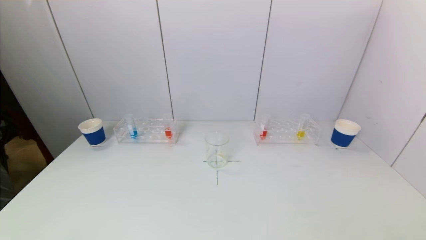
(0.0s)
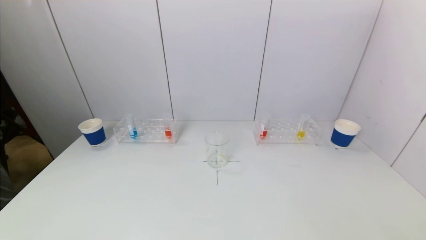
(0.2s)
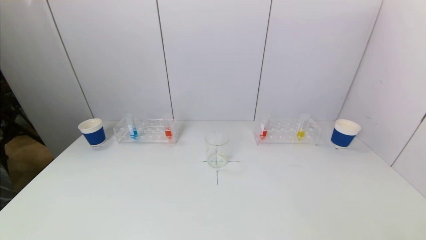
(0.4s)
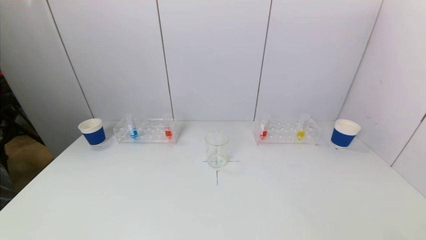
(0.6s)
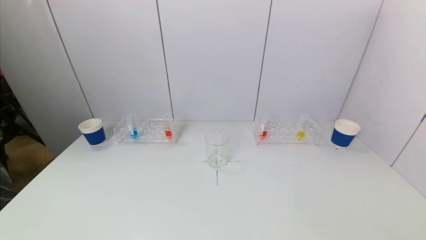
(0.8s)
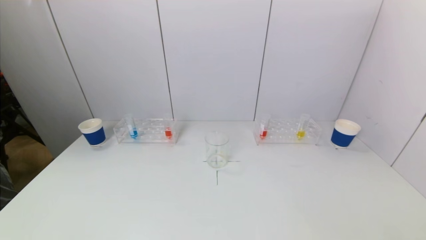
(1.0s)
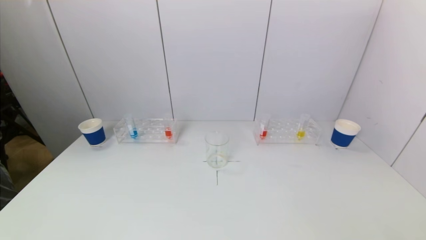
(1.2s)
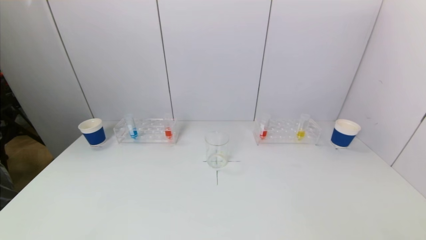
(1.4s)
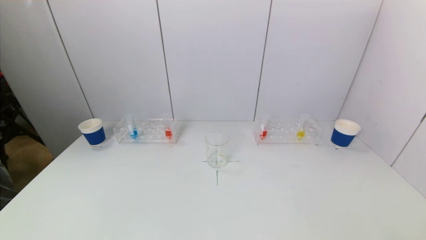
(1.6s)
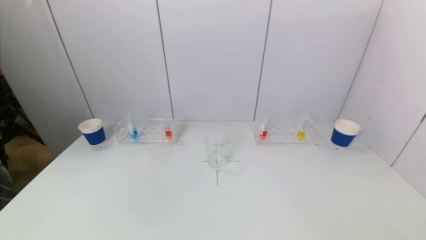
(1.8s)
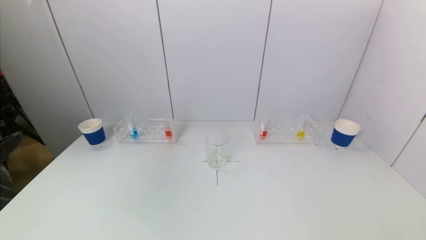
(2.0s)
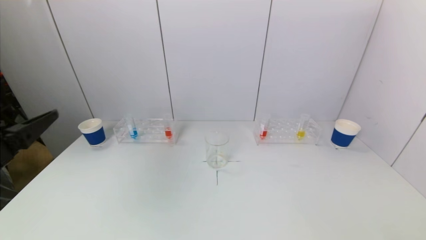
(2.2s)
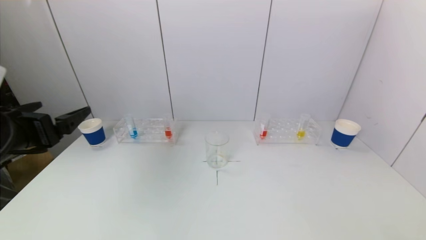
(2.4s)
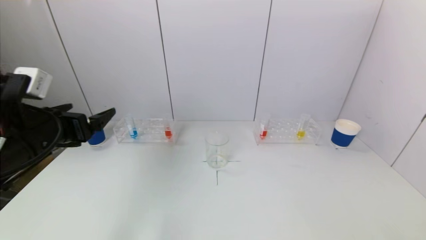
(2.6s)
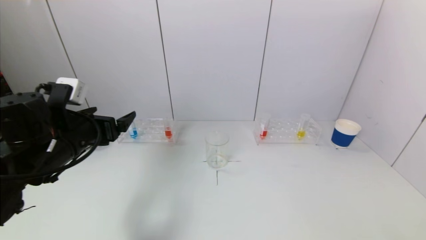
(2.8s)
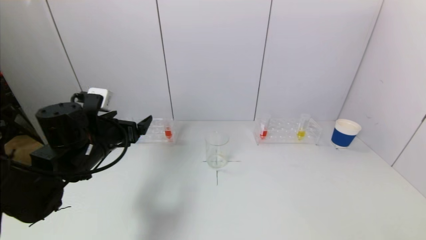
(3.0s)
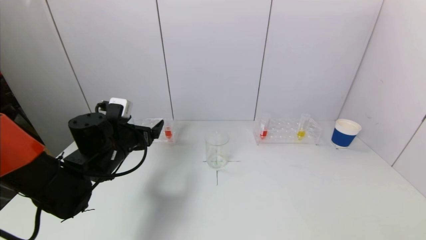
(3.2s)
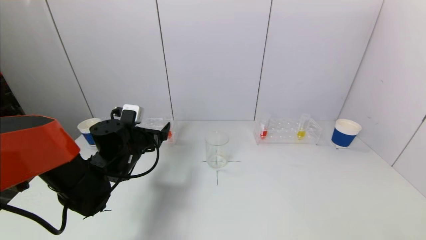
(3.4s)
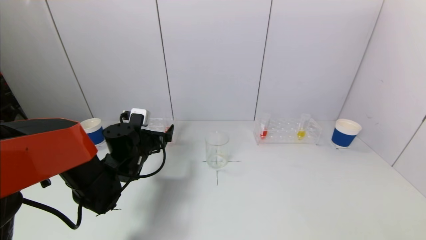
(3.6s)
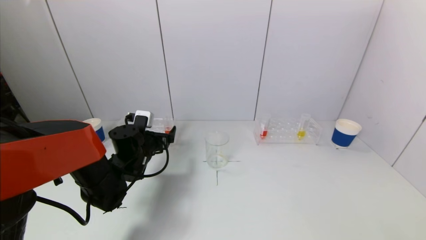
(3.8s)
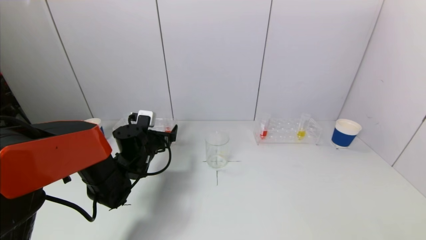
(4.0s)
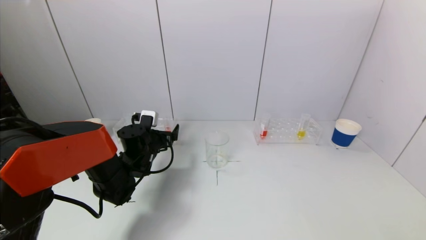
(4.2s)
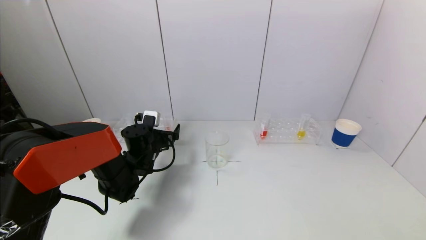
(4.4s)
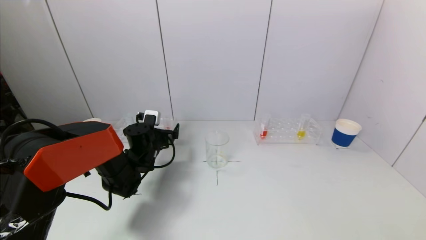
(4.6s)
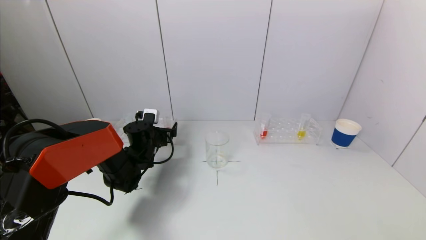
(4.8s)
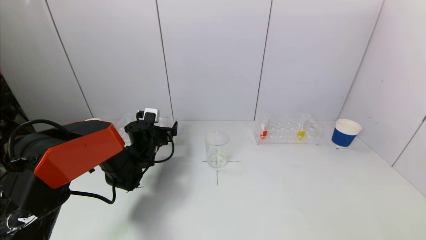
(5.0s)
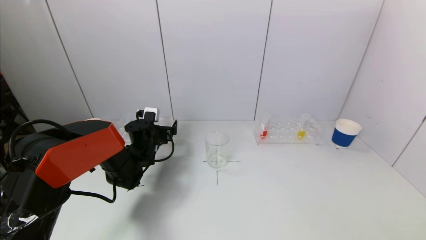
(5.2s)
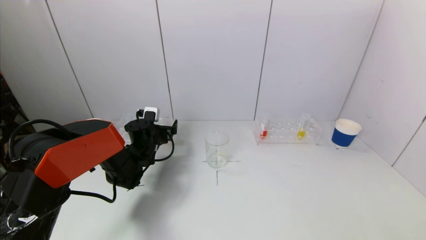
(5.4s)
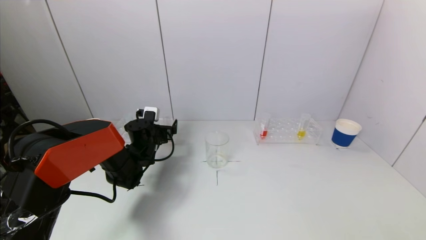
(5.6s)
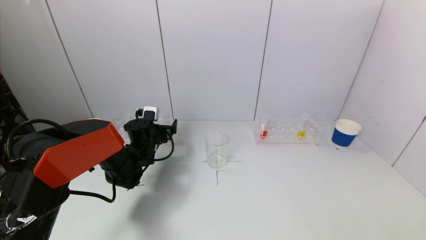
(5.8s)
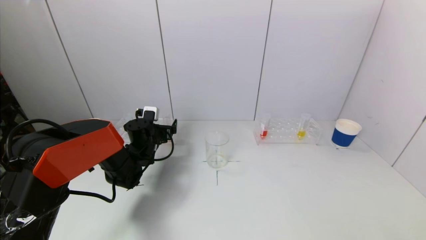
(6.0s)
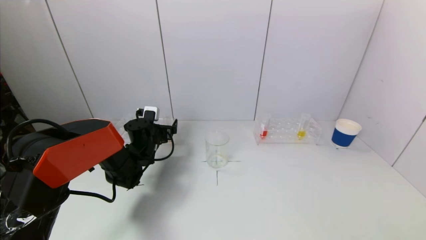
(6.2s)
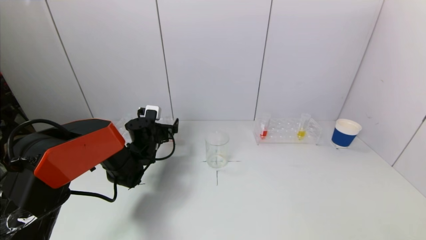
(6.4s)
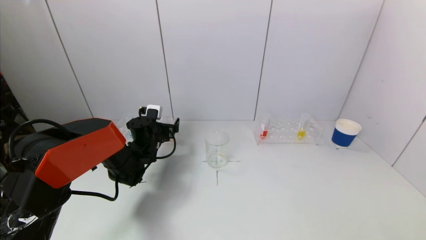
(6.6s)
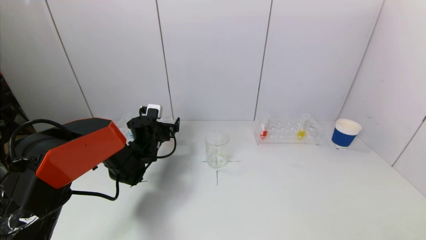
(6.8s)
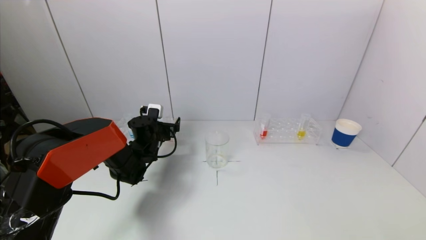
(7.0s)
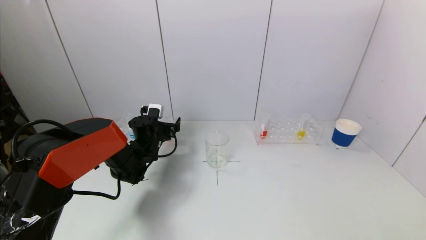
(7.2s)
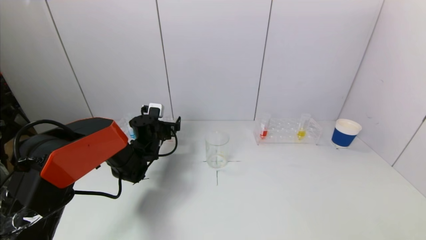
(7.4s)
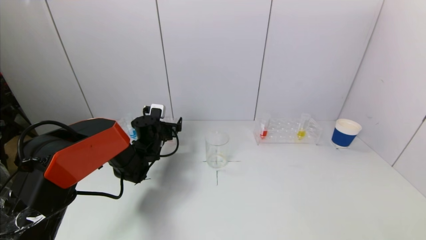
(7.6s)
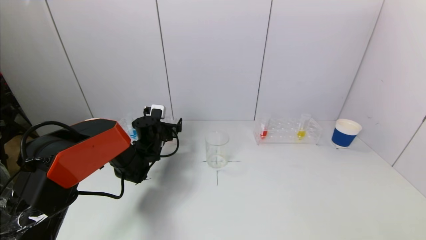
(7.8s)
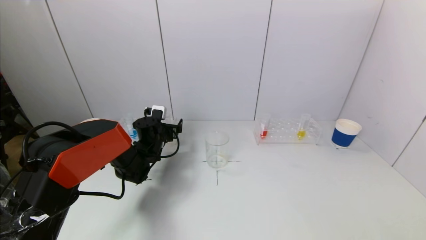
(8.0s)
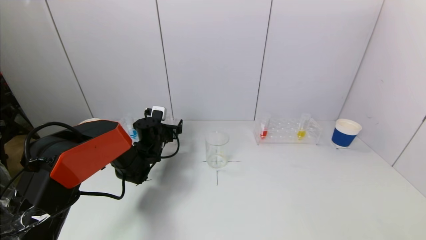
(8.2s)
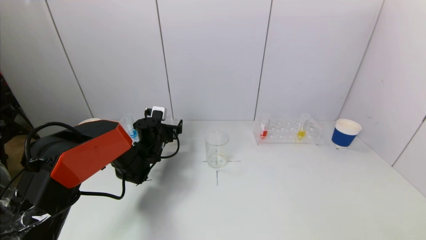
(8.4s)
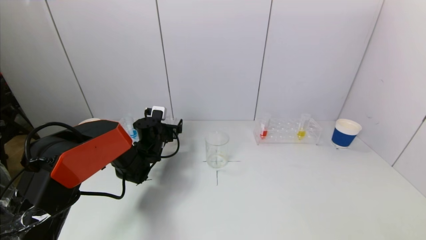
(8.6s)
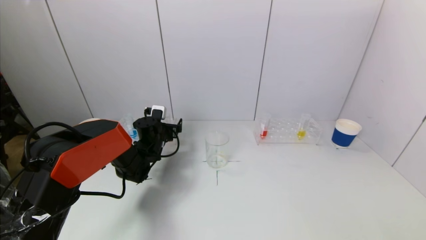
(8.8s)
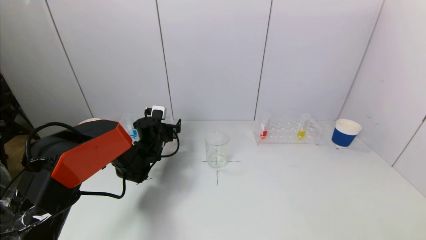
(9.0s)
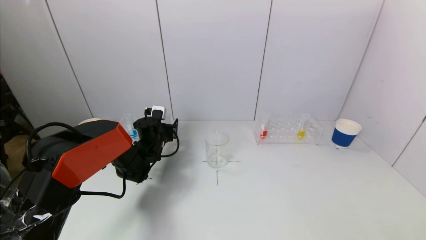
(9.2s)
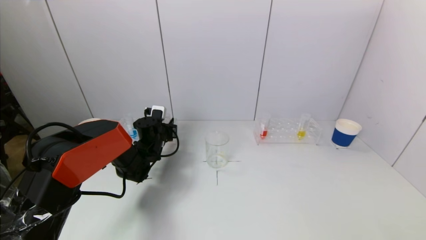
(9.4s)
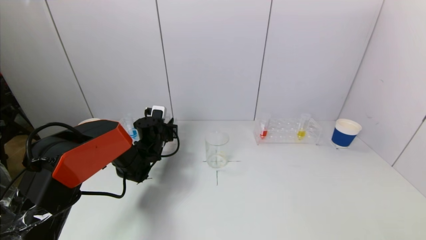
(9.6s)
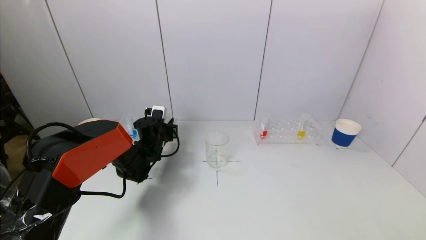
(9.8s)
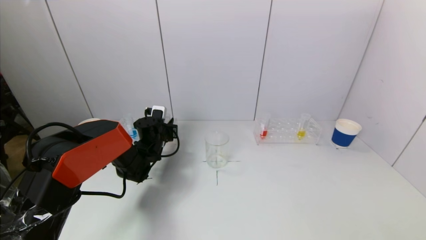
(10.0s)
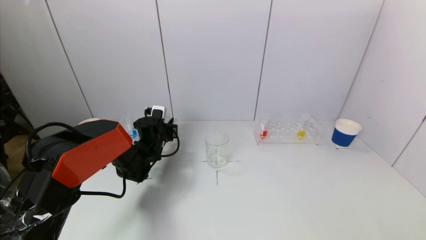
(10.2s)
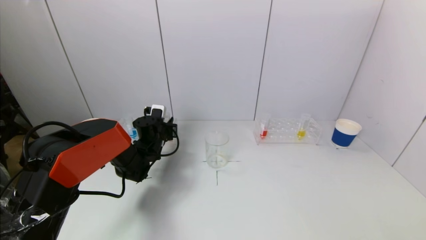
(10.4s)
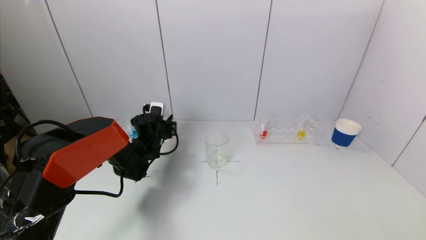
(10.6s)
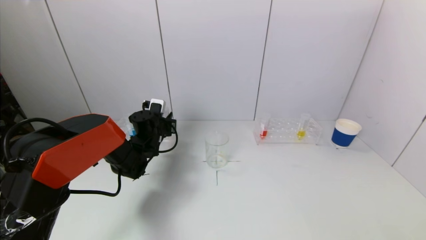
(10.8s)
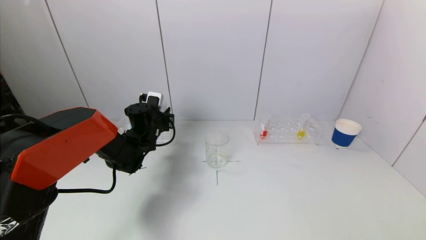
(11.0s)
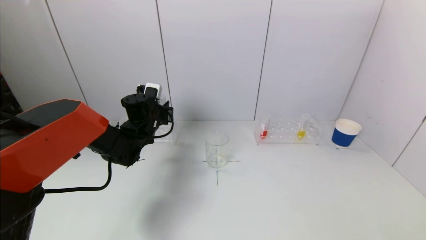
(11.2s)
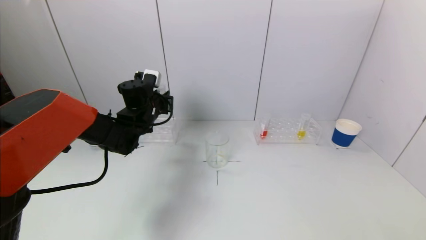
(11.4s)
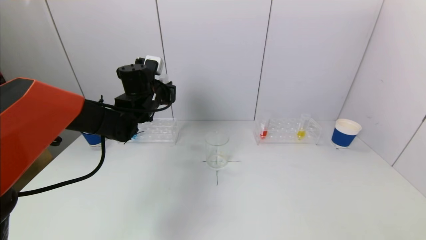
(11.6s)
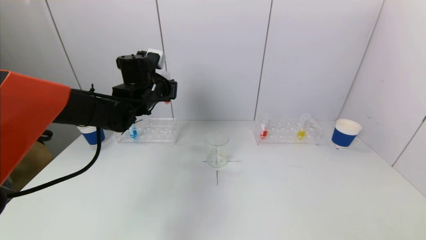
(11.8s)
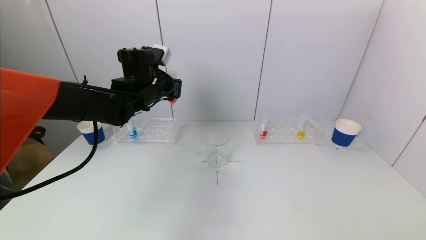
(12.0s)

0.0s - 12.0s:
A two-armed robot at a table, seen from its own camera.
Task of the whole recording: pick up a test tube with pigment on left test tube rack and a test tube with pigment on right test tube rack by grippers and pour them into the beaker.
Step, 0.0s - 9.6s: Grasp the red reagent with the left gripper.
1.6s - 3.0s: The left gripper shifts some 30 cm forward.
3.0s - 4.4s: The left gripper is displaced downward, forward and to the right by roughly 15 cm.
4.4s - 7.6s: The grippers make only small movements.
7.6s - 9.0s: The two grippers keep their place.
9.0s - 10.4s: The left gripper closes its fingers.
10.4s - 12.0s: The left gripper shifts some 20 cm upward.

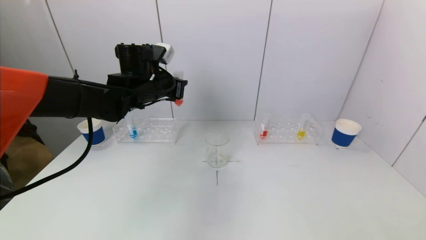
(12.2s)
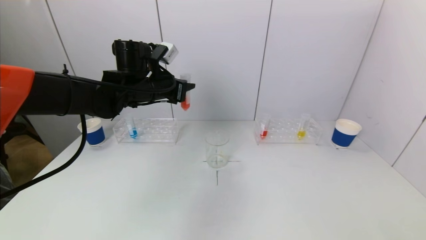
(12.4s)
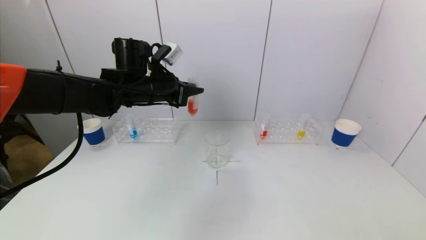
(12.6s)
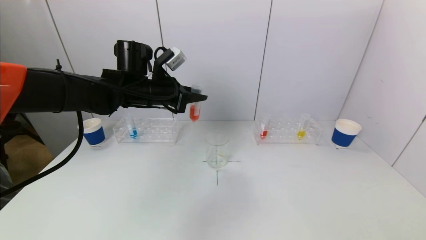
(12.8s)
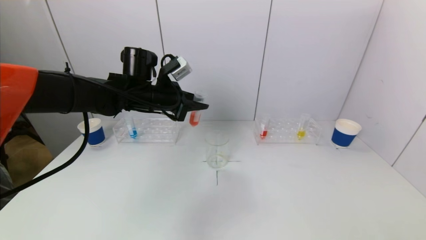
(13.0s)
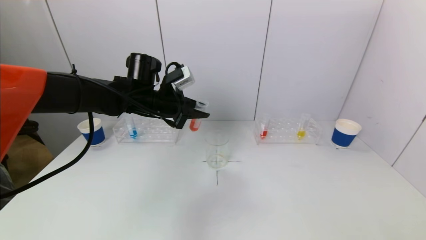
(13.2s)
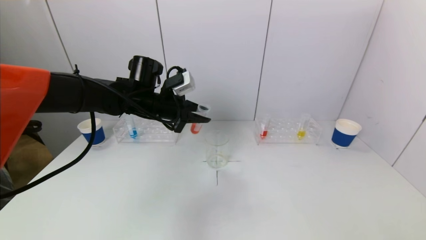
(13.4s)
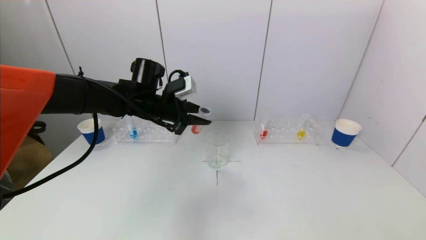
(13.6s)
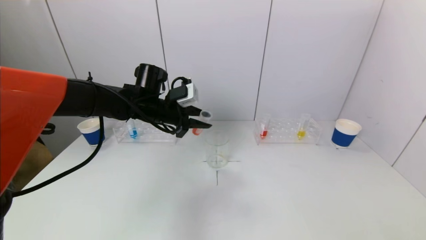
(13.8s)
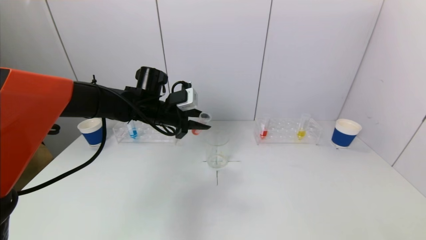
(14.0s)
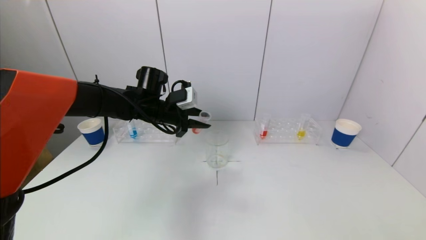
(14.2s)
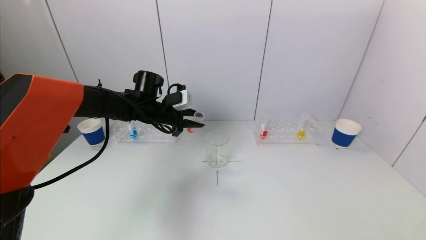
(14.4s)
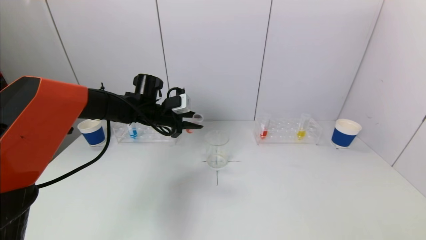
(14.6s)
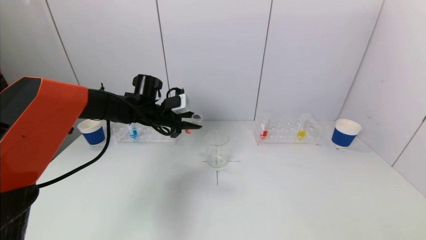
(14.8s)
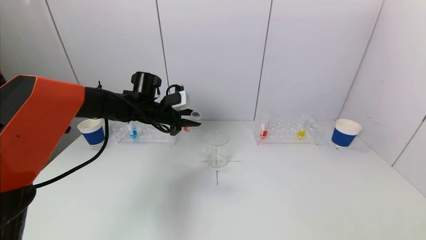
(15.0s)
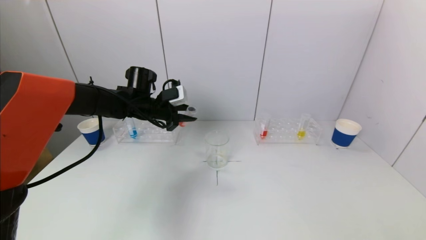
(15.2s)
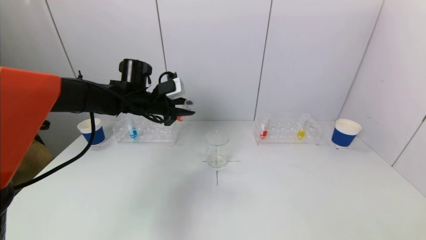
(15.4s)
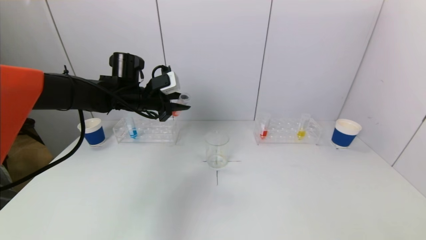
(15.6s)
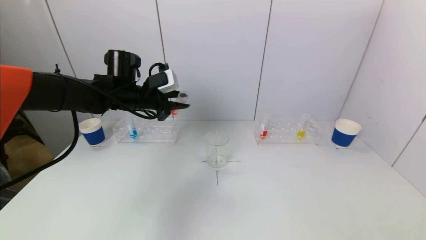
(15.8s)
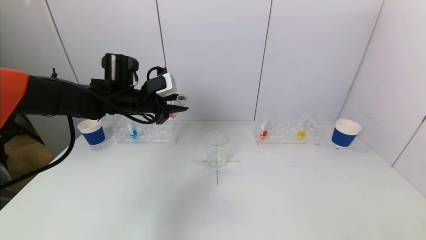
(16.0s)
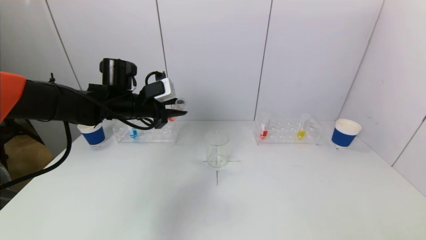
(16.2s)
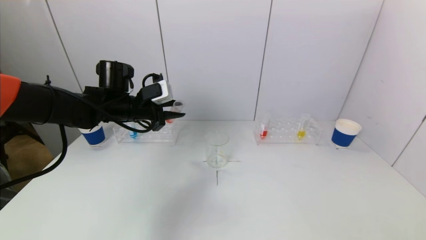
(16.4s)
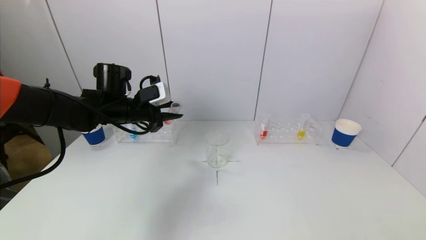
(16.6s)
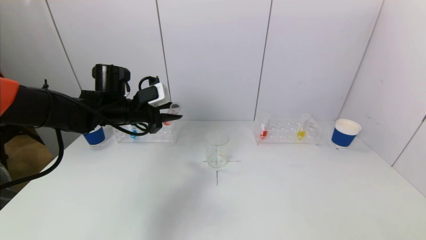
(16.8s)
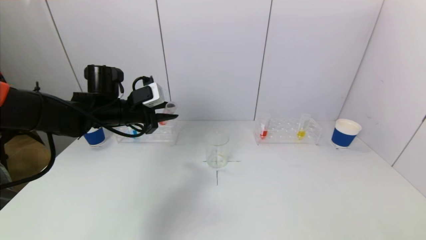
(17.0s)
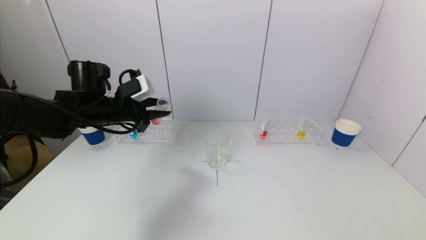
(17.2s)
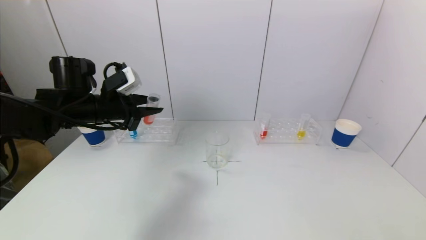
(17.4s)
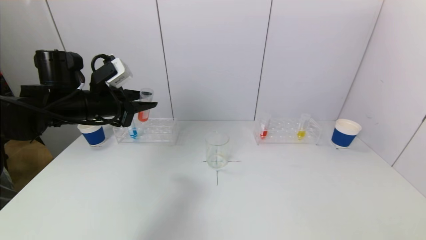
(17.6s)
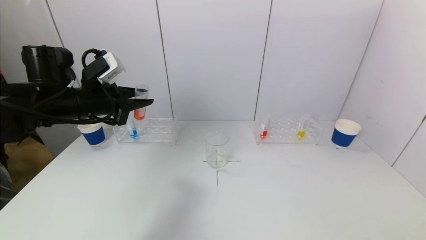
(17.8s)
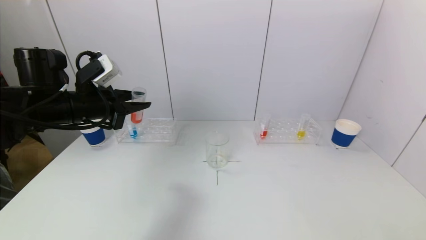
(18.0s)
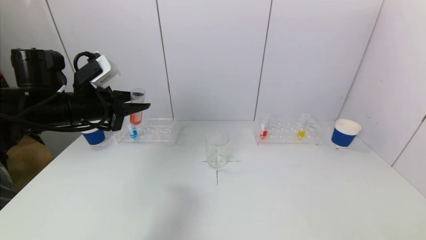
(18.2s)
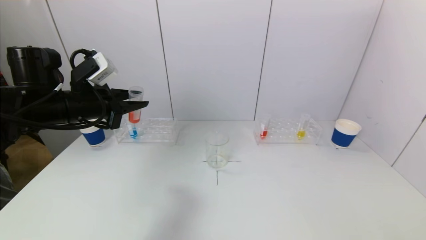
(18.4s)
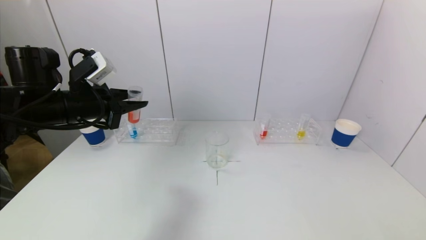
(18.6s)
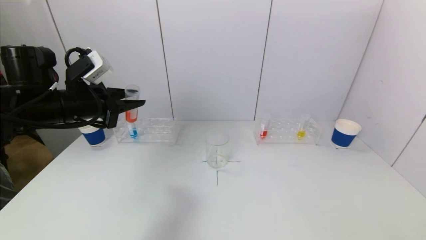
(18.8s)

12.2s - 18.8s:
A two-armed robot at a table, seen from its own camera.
Task of the whole recording: pick up a test tube with pigment on left test tube rack and a test tube with pigment on right test tube rack by grippers and pour them into the beaker.
12.2s - 13.8s: The left gripper moves approximately 5 cm.
13.8s - 15.4s: The grippers move only a little.
15.4s - 17.2s: The left gripper goes about 10 cm backward and to the left.
17.2s - 18.8s: The left gripper shifts approximately 5 cm backward.
